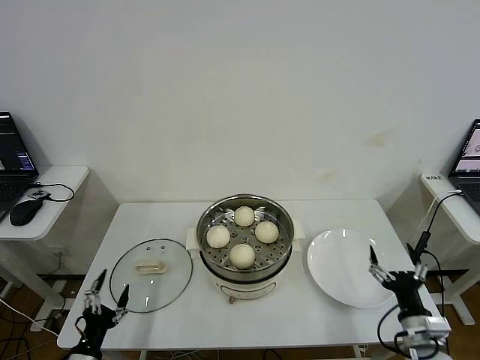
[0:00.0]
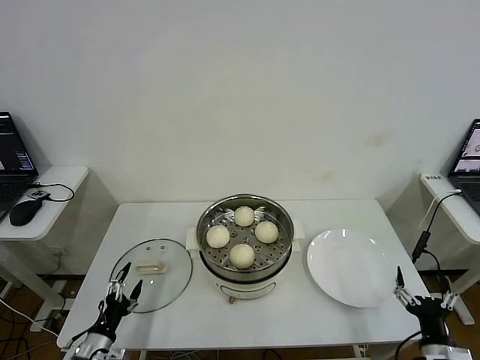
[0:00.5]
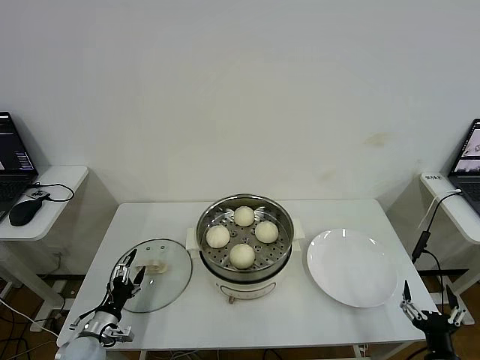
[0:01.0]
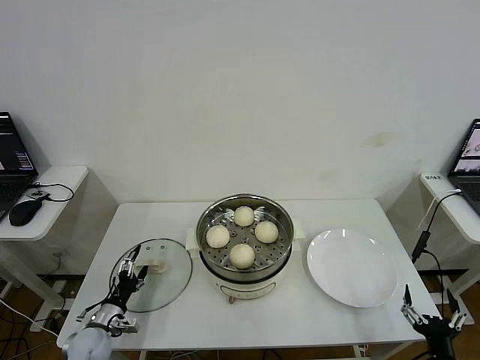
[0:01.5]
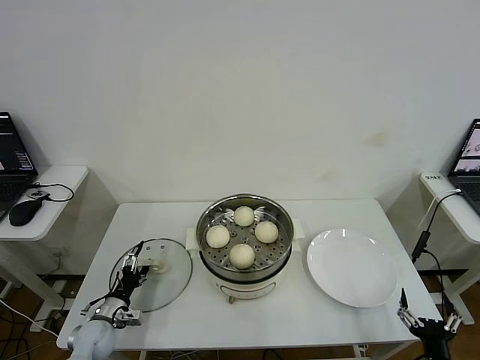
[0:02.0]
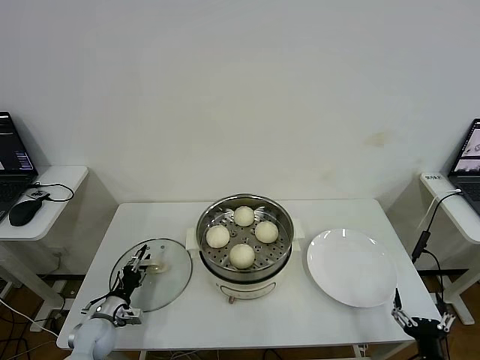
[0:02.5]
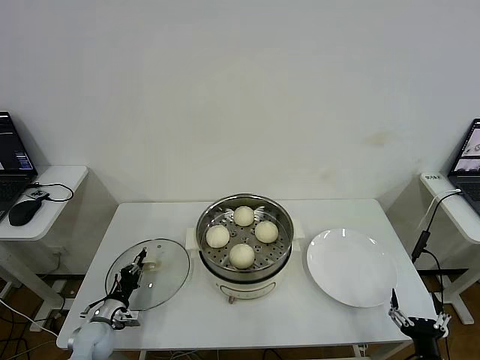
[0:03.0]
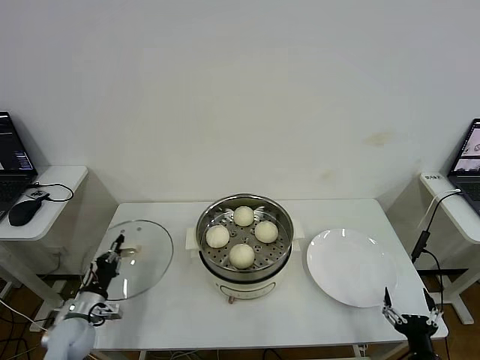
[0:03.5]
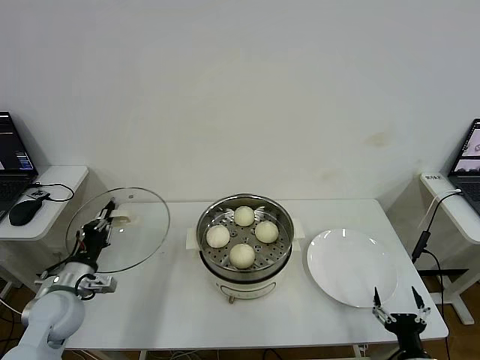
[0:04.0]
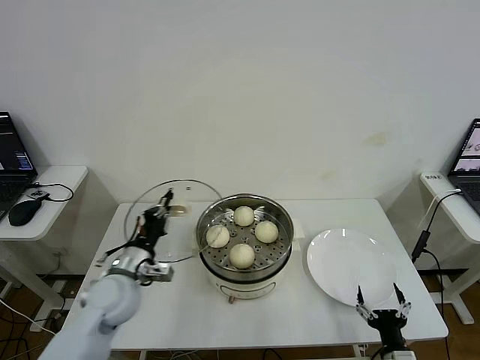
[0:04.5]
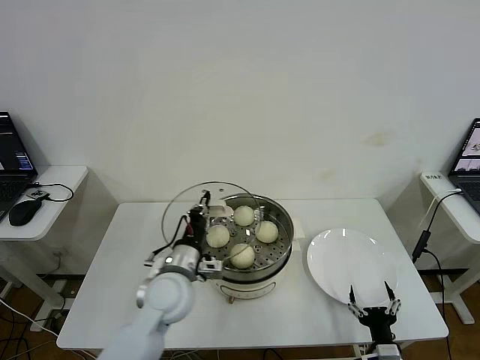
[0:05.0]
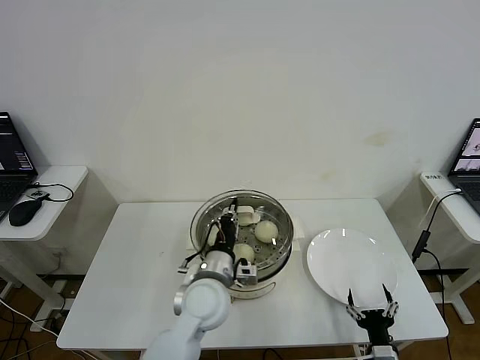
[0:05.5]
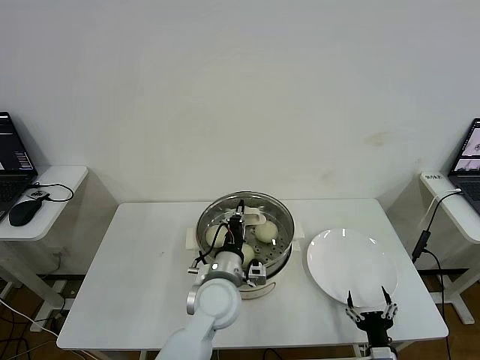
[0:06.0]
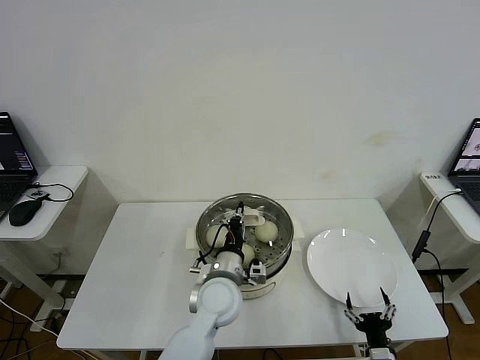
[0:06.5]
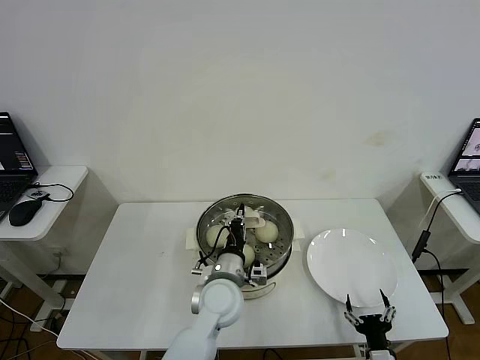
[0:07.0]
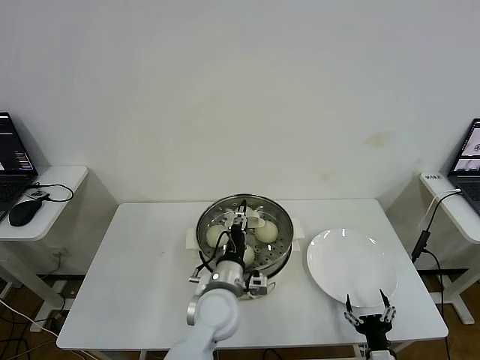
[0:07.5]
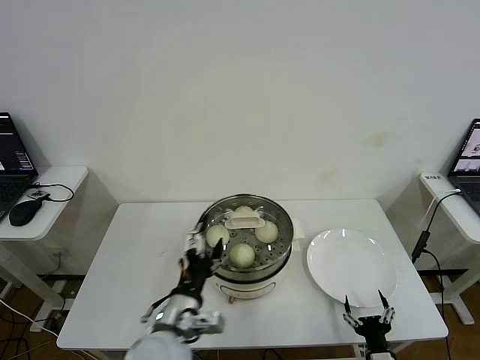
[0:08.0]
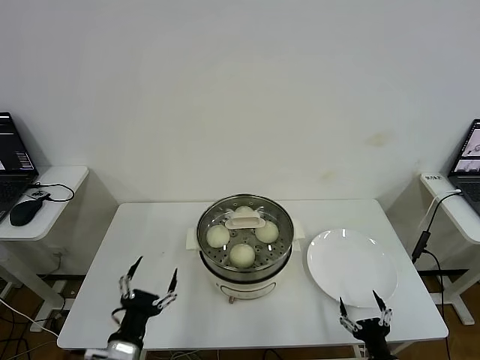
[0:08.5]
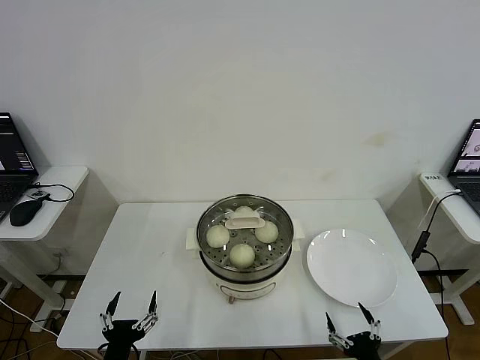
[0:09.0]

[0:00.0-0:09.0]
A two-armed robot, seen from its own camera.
Step, 0:00.0 to 0:03.0: Grasp the pot lid with left gripper.
Step, 0:03.5 to 0:07.5: Place the pot lid on the steamer with left gripper.
0:00.0 to 0:02.0: The left gripper is displaced forward by some 15 cm; the right gripper is displaced backward by some 10 cm.
0:02.0 to 0:04.5: The left gripper moves upward and to the right, approximately 20 cm, and closes up. The right gripper changes place by approximately 5 cm.
0:04.5 to 0:07.0: The left gripper shifts roughly 20 cm to the right.
0:07.0 to 0:09.0: The right gripper goes some 5 cm backward. The left gripper heads to the left and backward, covering roughly 30 cm, and opens up.

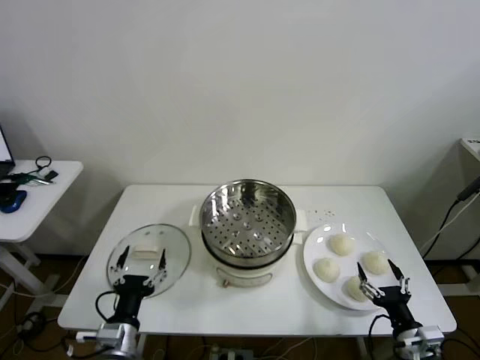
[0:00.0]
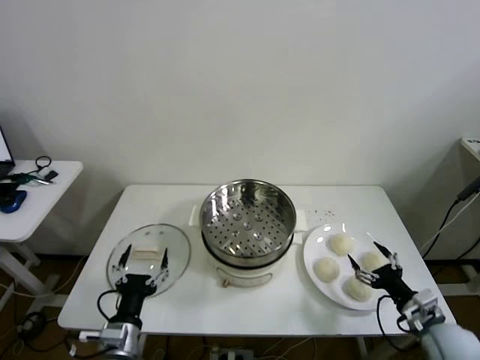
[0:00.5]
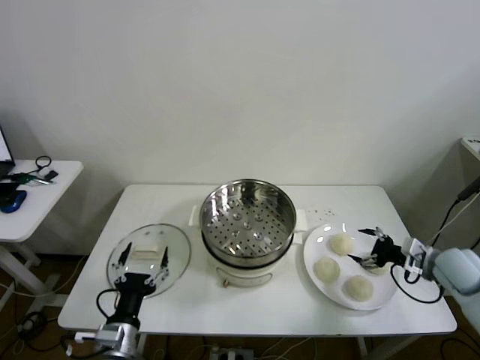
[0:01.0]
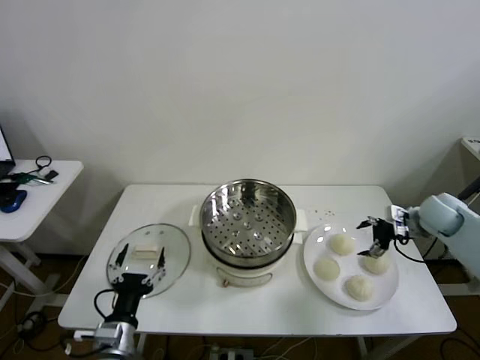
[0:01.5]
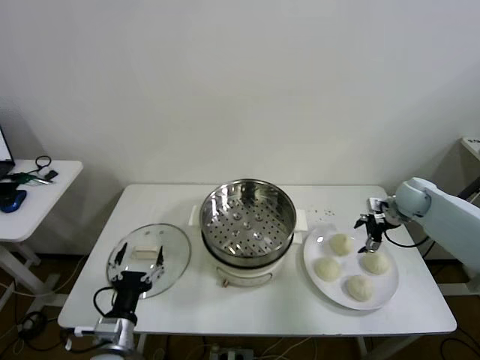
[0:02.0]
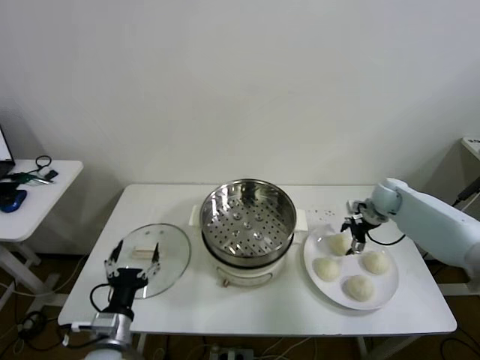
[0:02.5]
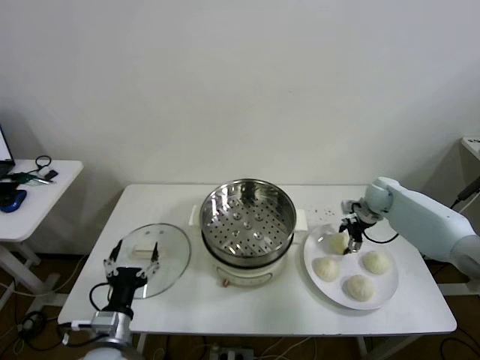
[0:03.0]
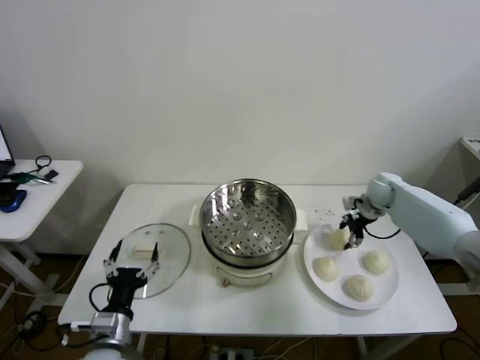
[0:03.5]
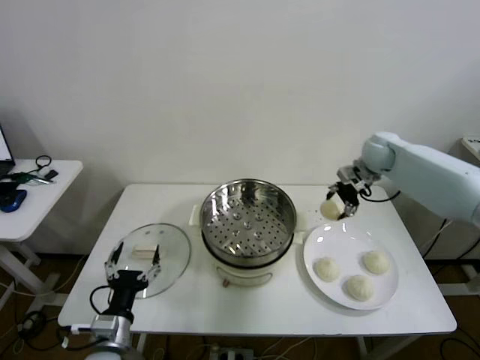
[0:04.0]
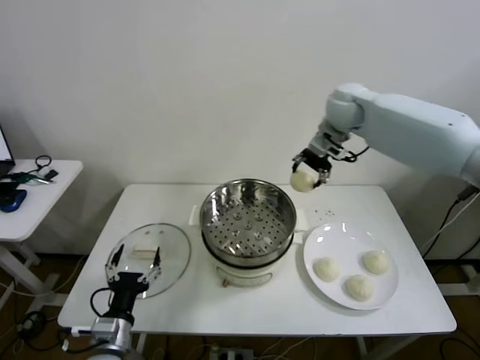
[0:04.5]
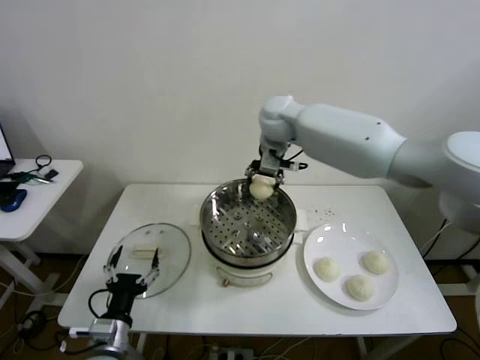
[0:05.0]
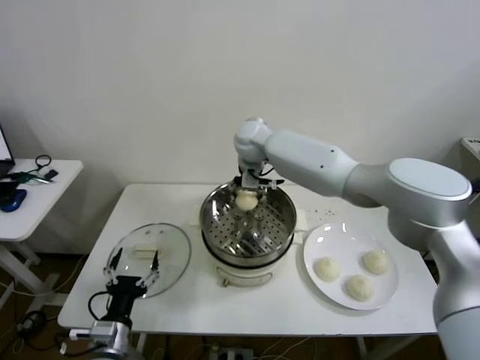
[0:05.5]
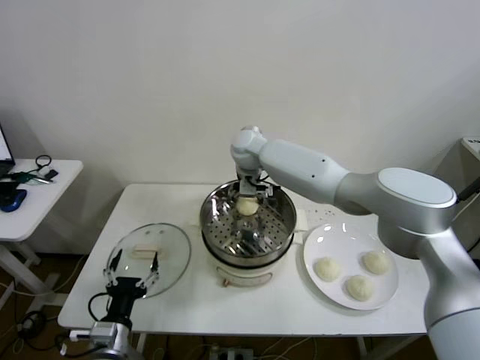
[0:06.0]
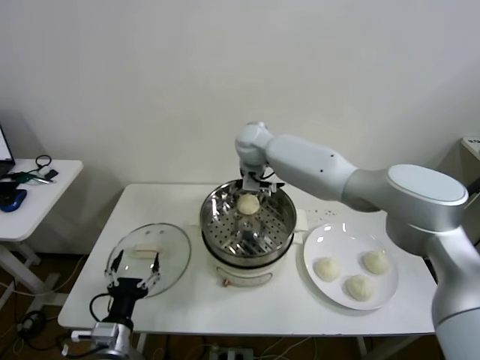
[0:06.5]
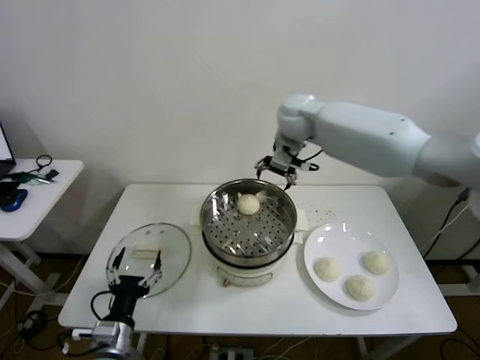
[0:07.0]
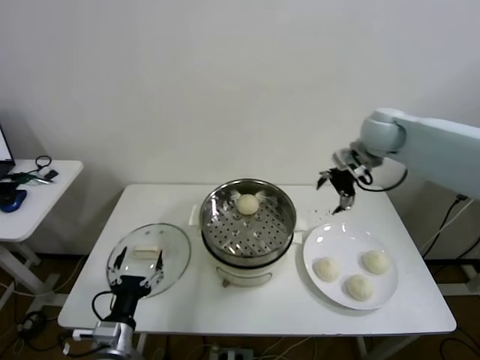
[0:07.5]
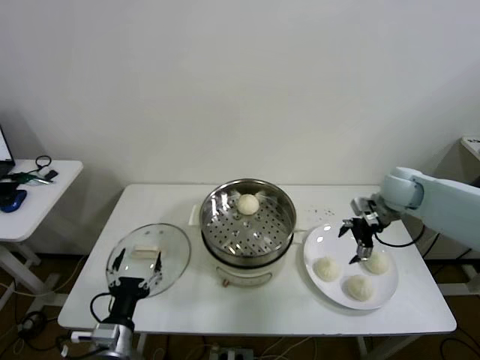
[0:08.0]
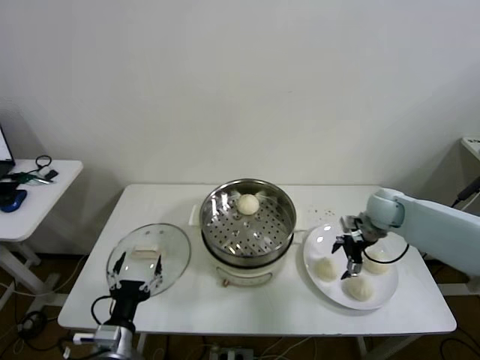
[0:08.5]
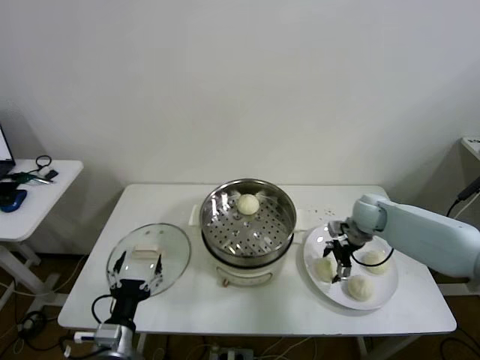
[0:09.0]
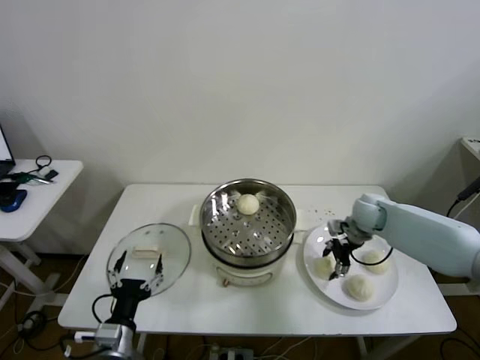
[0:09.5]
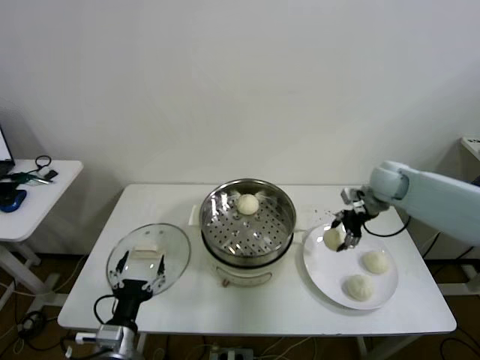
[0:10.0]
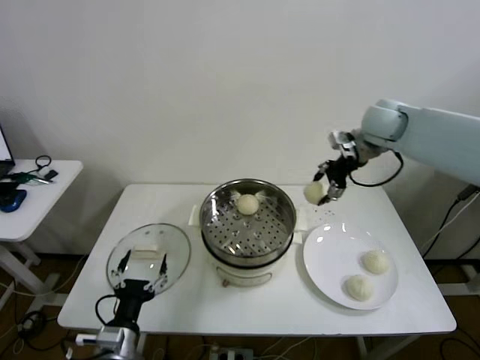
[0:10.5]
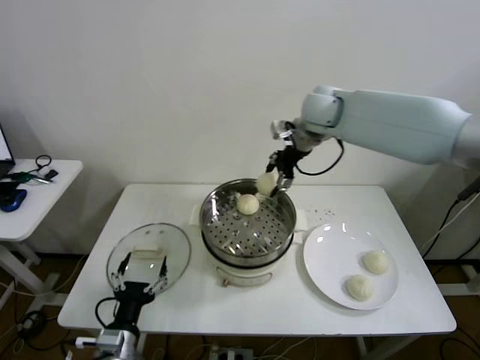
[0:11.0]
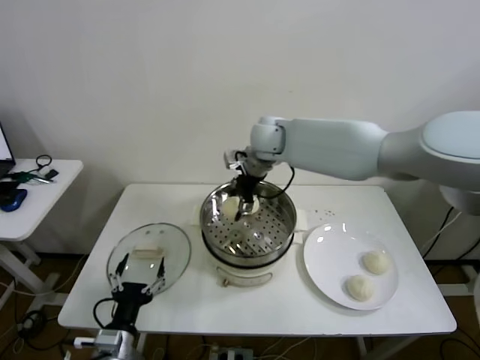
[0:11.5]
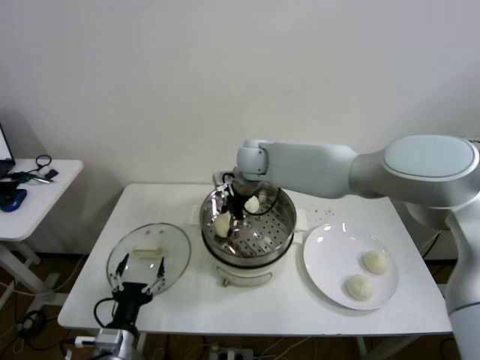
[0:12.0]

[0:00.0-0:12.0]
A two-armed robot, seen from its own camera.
Step, 0:00.0 to 0:03.0: Grasp the baozi in the plate with right gripper.
Step, 0:03.5 to 0:06.0: Place the baozi on the steamer with right gripper.
Step, 0:06.5 to 0:09.0: Grasp the baozi in the plate with right gripper.
0:02.0 to 0:04.0: The right gripper travels upward, to the left and forward by some 20 cm, and closes its fingers.
0:04.0 to 0:06.0: The right gripper moves to the left, roughly 30 cm, and opens.
0:06.0 to 0:08.0: The right gripper goes roughly 35 cm to the right.
0:08.0 to 0:10.0: The right gripper shifts by roughly 5 cm, and closes up.
0:10.0 to 0:12.0: The right gripper heads to the left, covering approximately 35 cm.

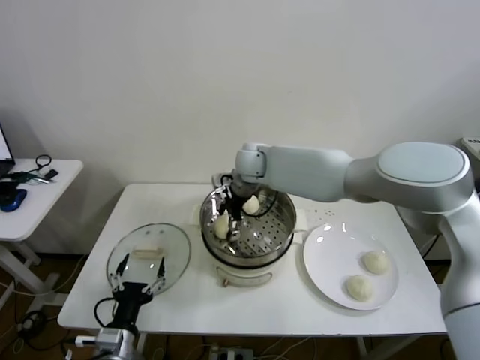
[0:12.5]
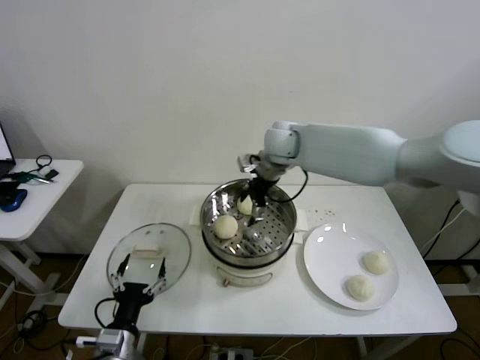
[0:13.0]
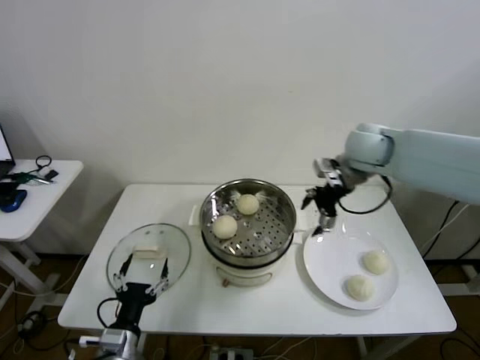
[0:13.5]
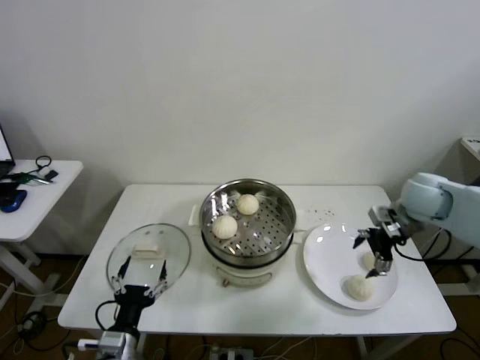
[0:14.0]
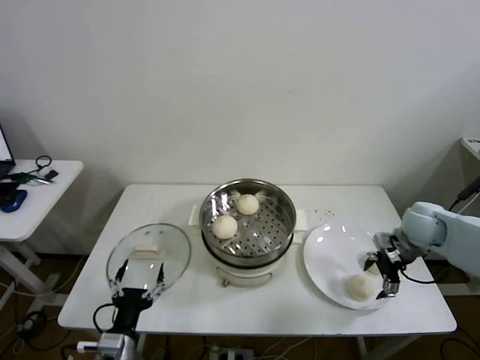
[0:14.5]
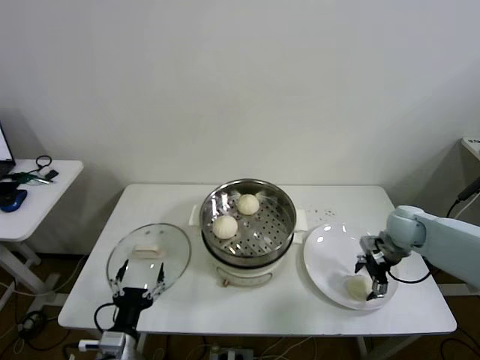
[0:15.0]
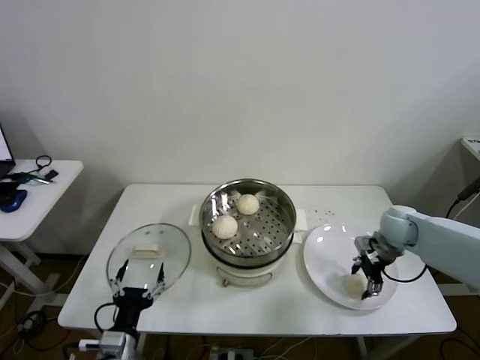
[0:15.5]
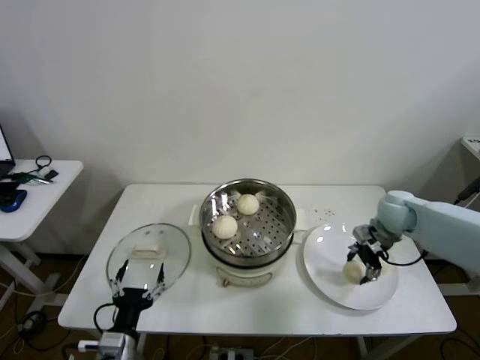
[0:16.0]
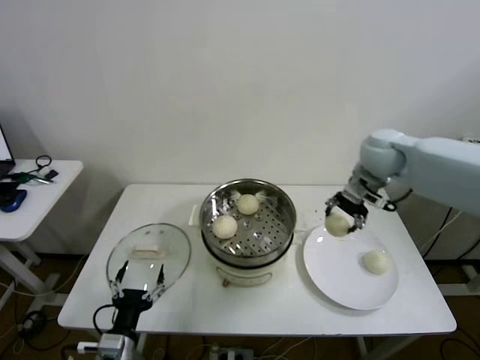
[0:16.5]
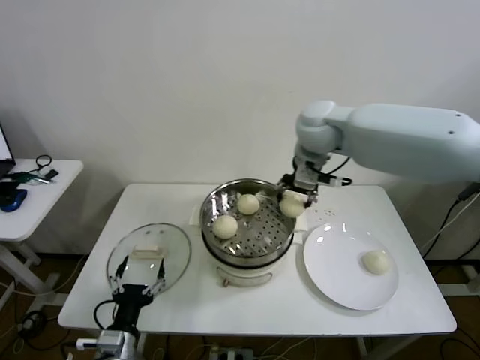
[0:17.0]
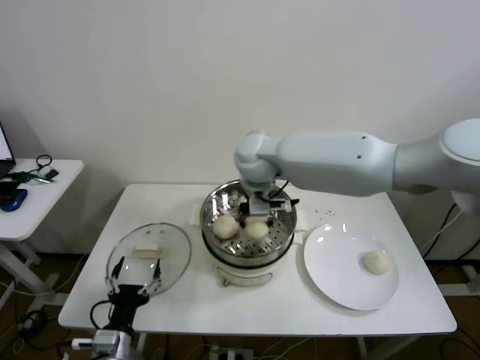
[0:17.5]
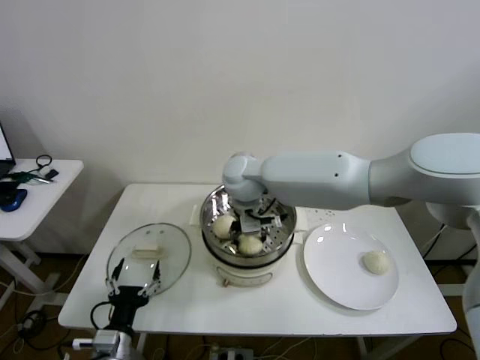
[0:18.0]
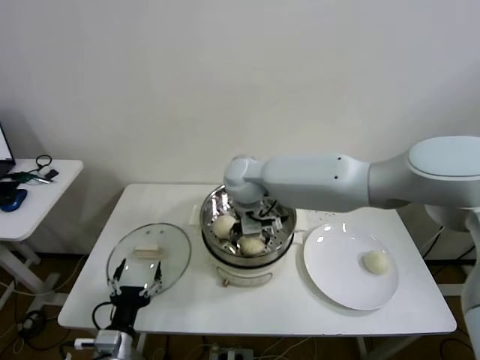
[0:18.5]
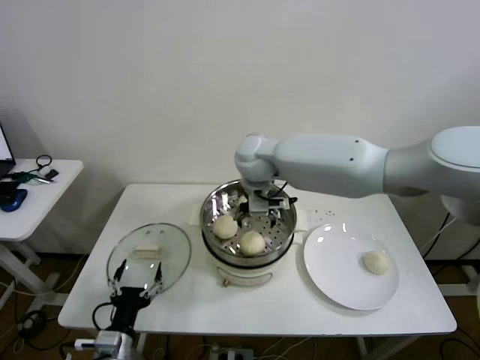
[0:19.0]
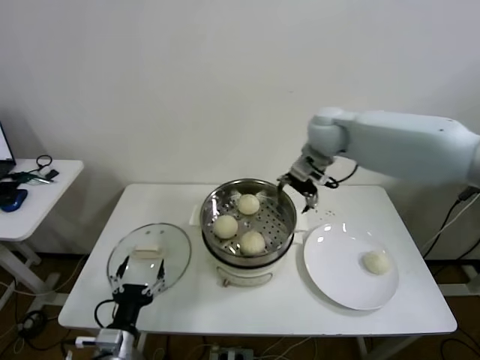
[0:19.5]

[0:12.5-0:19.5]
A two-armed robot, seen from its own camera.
Step, 0:13.0 to 0:15.5: Grasp the baozi in the plate with right gripper.
Step, 0:16.0 to 0:18.5: Place the baozi on the steamer with right gripper.
0:12.5 to 0:14.5: The right gripper heads to the right, covering some 40 cm.
0:14.5 to 0:16.0: The right gripper changes place by roughly 5 cm, and closes.
0:16.0 to 0:17.5: The right gripper moves to the left, roughly 35 cm.
0:17.5 to 0:19.5: The right gripper shifts about 20 cm to the right, and opens.
